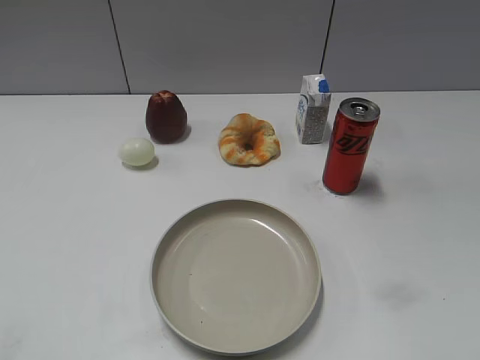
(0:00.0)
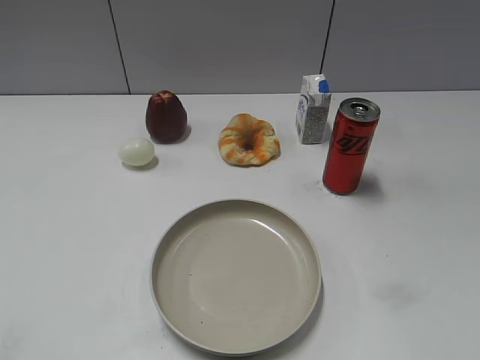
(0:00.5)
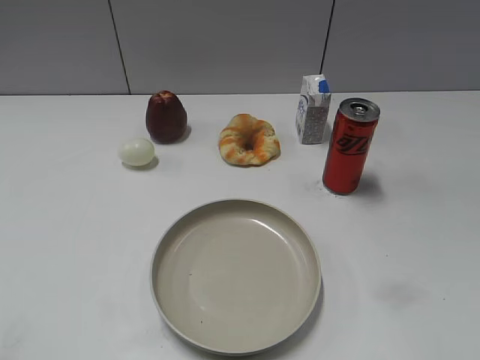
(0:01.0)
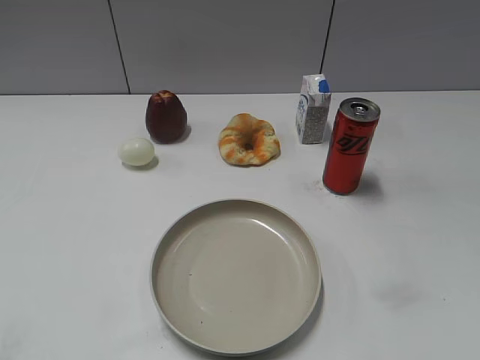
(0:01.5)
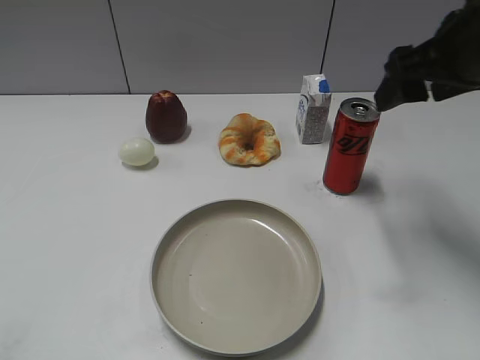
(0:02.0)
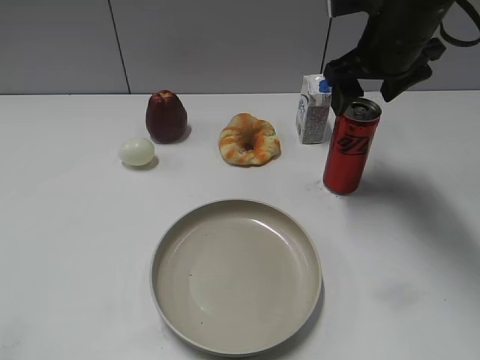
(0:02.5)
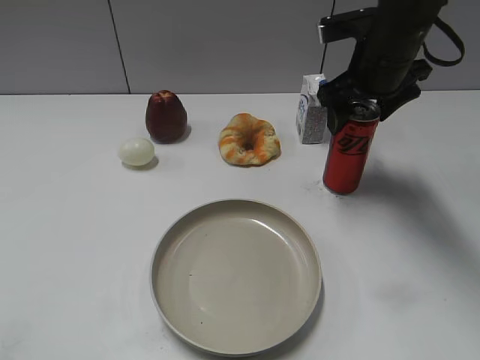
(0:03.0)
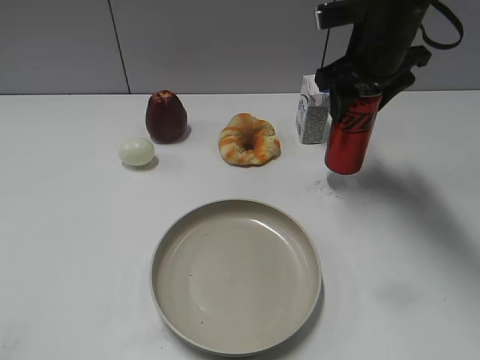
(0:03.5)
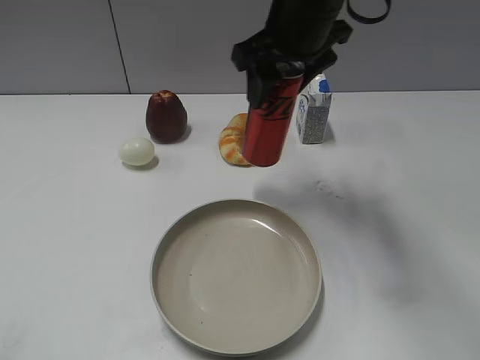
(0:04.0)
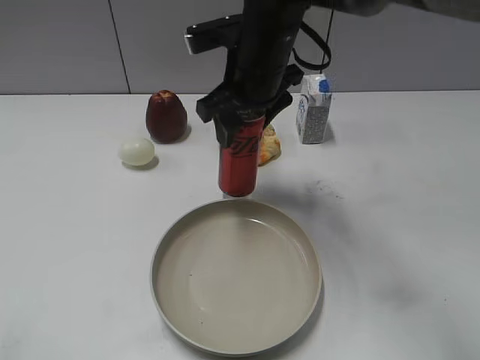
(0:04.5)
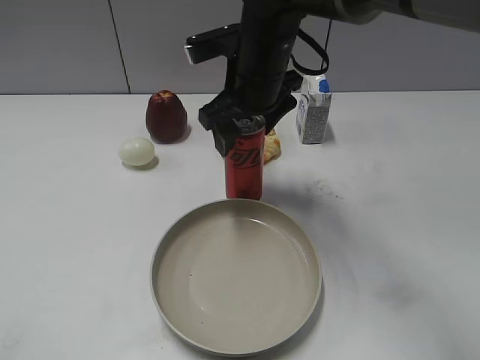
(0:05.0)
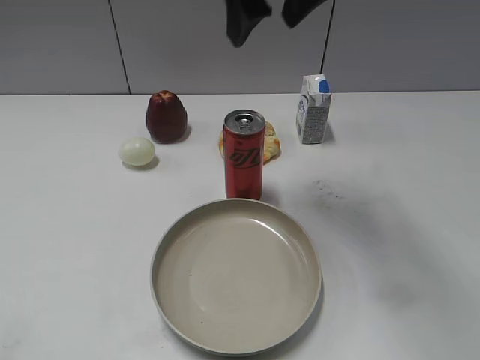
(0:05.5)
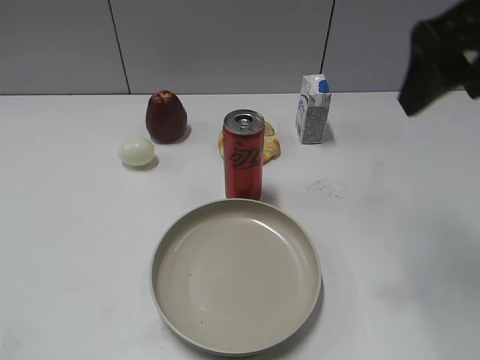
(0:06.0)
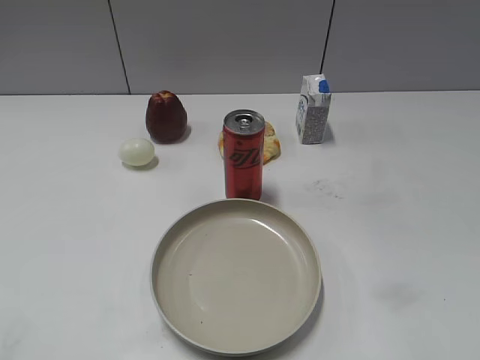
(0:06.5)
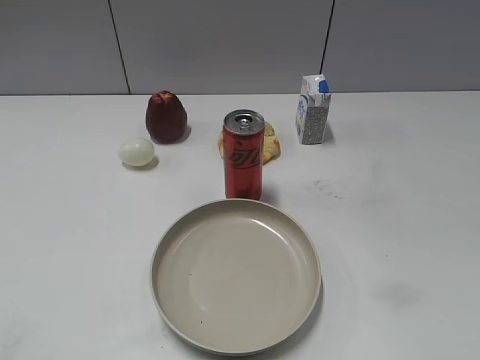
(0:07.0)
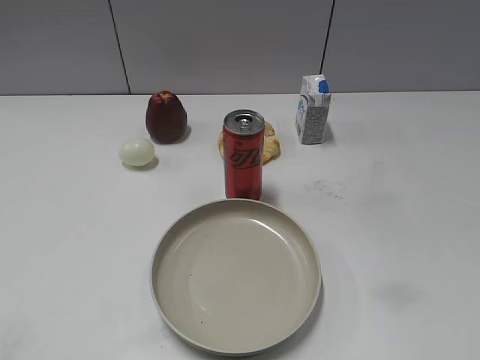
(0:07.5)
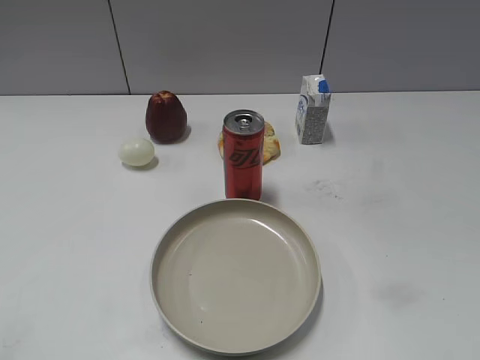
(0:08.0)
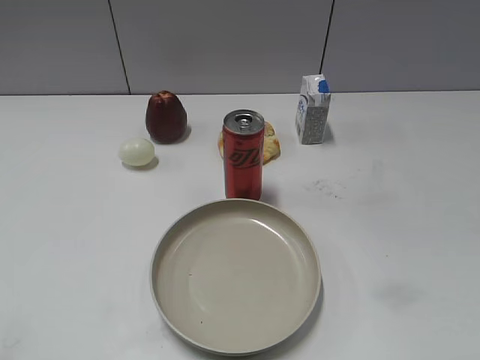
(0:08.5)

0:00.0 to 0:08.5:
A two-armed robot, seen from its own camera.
Step, 0:01.0 to 0:03.0: Grasp the cola with right gripper.
Step, 0:03.5 to 0:05.0: Place the cola on the table with right gripper.
0:02.0 to 0:04.0: The right gripper moves to the left and forward, some 15 cm, and closes.
0:04.0 to 0:06.5: The right gripper shifts some 35 cm backward and to the right, and opens.
